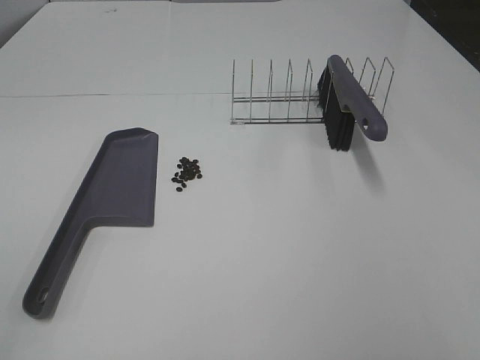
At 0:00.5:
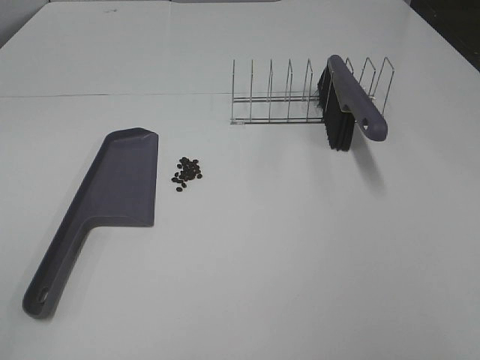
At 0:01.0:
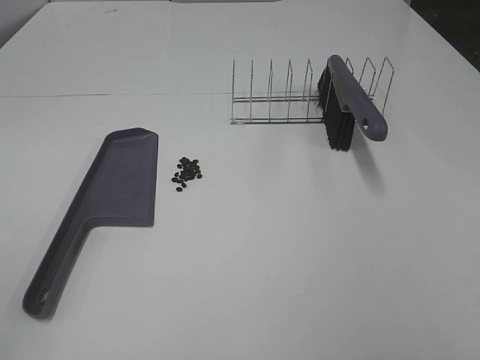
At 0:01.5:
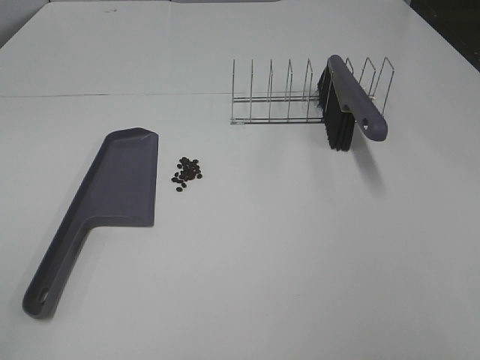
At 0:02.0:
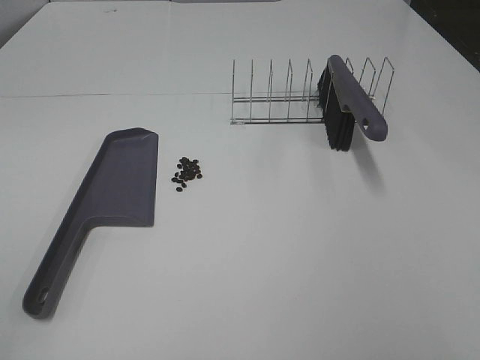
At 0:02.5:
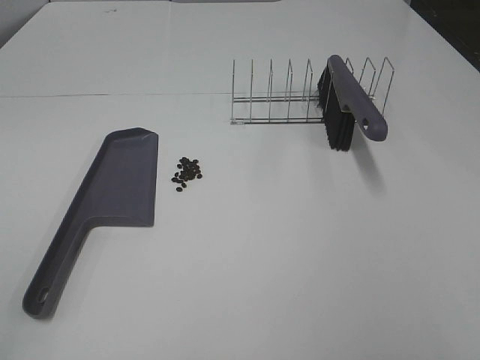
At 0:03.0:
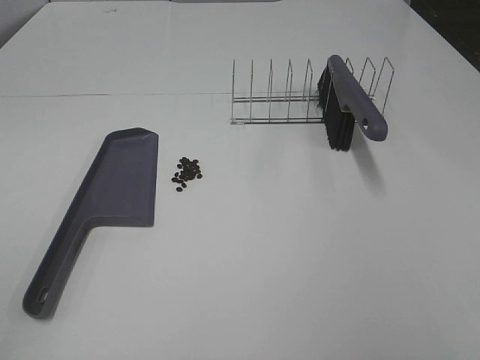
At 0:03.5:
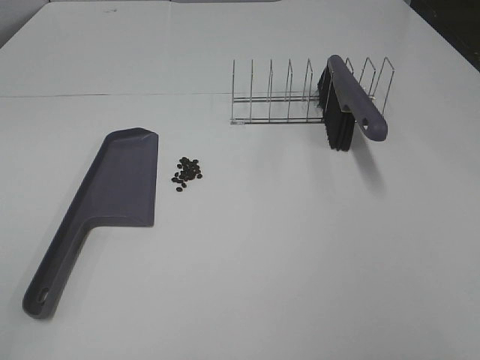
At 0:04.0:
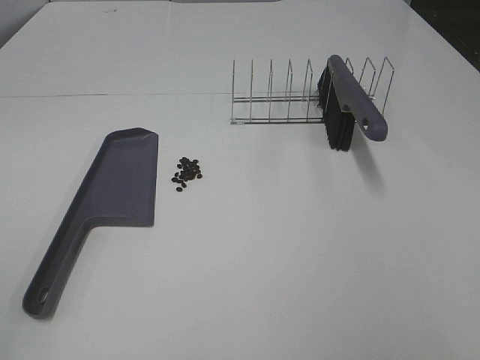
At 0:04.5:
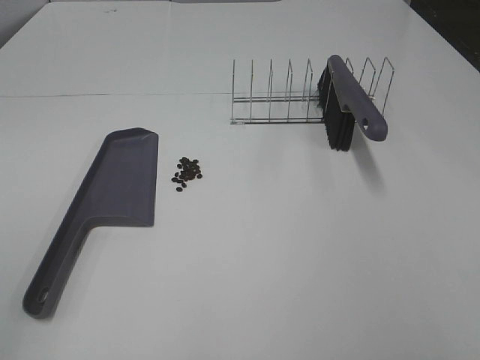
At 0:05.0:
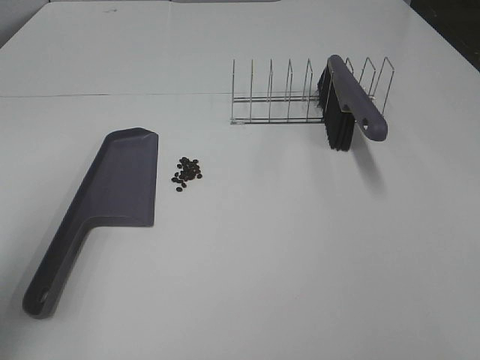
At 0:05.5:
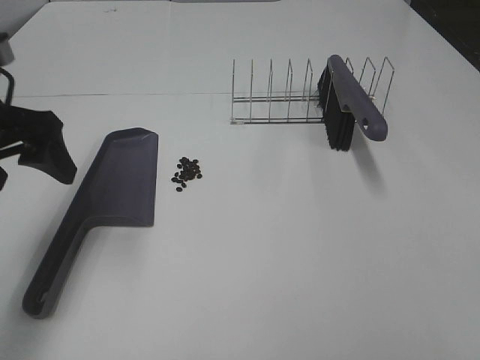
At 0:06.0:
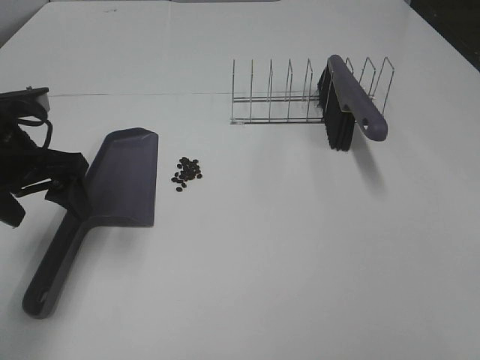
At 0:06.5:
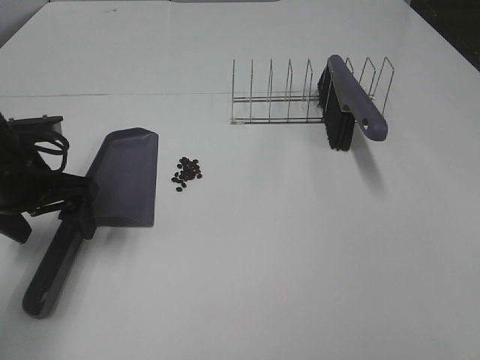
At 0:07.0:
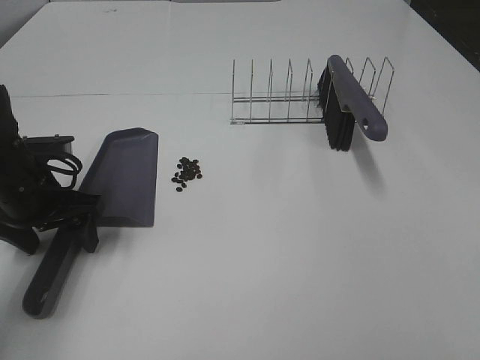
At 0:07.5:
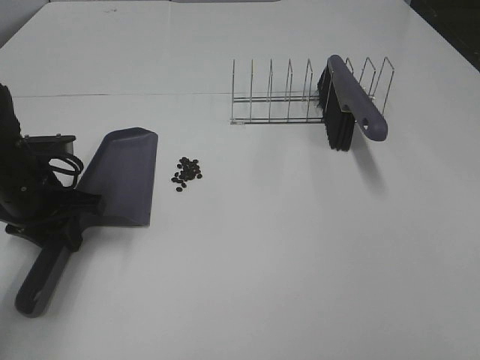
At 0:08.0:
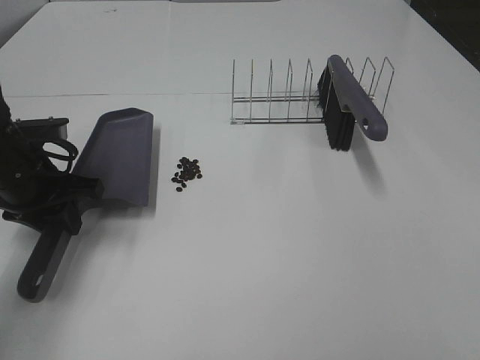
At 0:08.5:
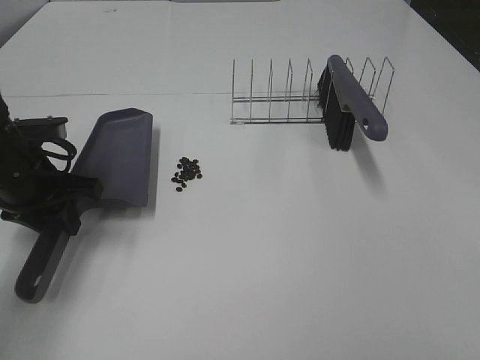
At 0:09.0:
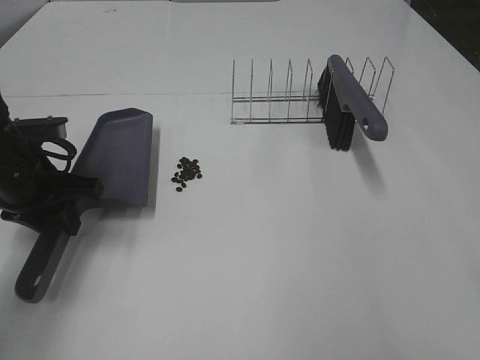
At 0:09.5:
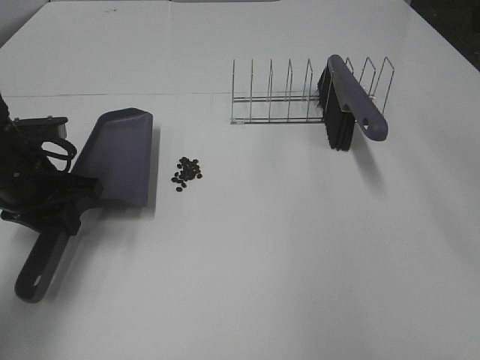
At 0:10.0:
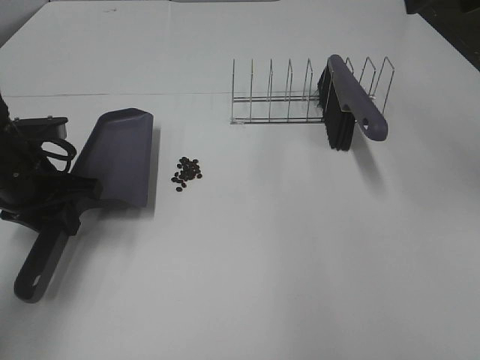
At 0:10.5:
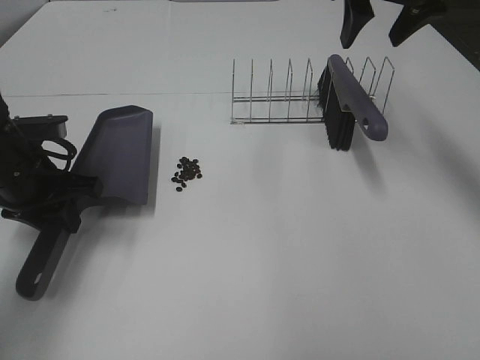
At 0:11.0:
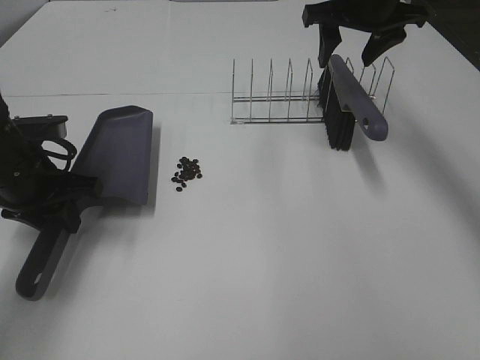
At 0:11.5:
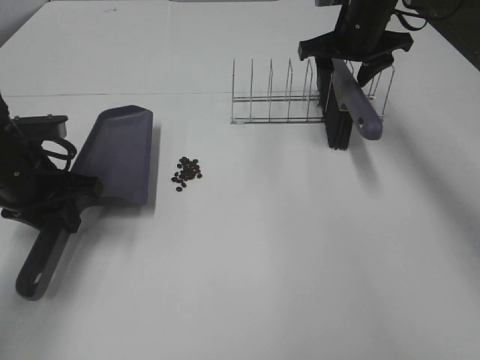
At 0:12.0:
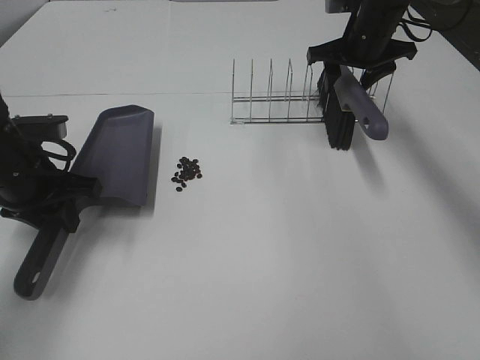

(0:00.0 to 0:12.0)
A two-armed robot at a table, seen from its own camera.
Task of the whole recording: Sweep Coffee Bean.
Step, 0:00.0 - 0:07.0: Left hand: grab the dustpan.
0:00.0 - 0:04.0: Neither gripper changes place.
0:04.0 - 0:06.0: The left gripper travels forward by roughly 30 cm.
0:06.0 - 0:08.0: The left gripper travels downward by about 5 cm, and closes.
0:10.0 - 0:12.0: The right gripper heads forward and downward, covering about 25 cm.

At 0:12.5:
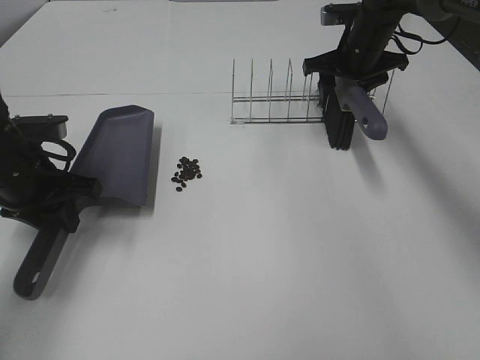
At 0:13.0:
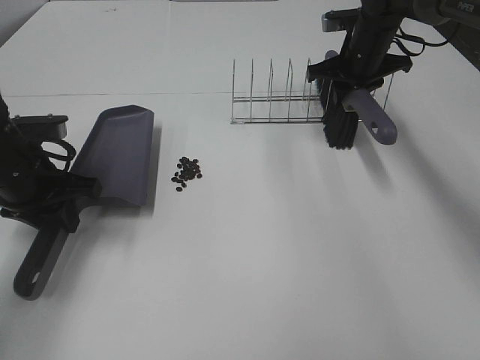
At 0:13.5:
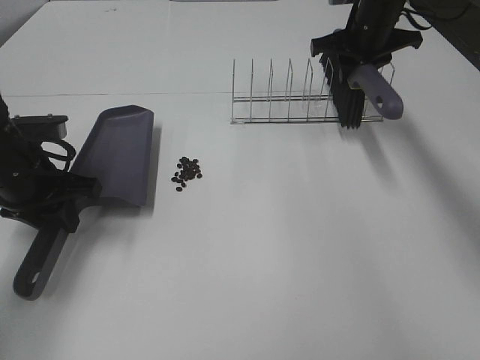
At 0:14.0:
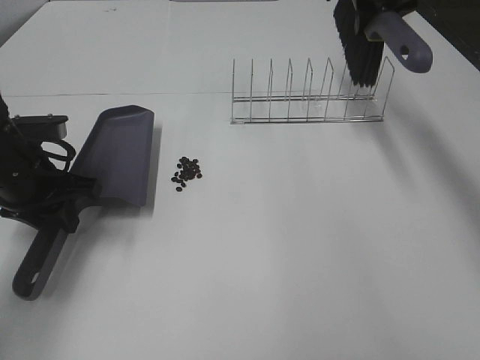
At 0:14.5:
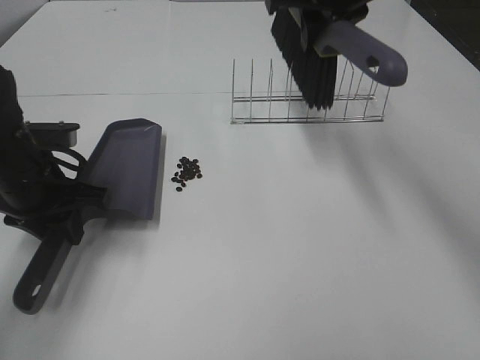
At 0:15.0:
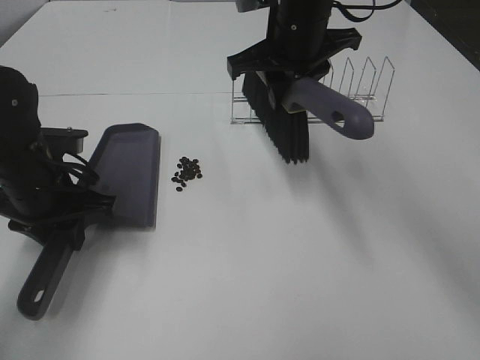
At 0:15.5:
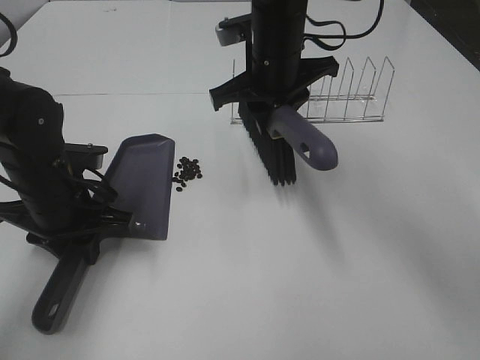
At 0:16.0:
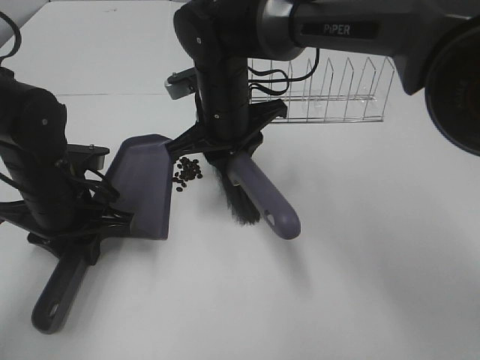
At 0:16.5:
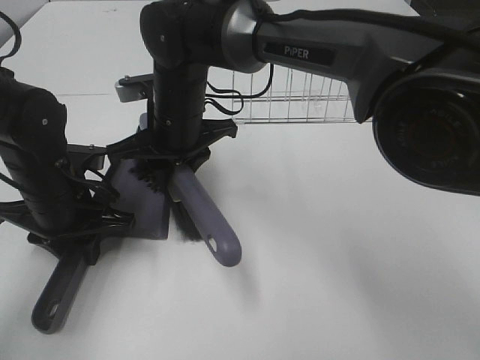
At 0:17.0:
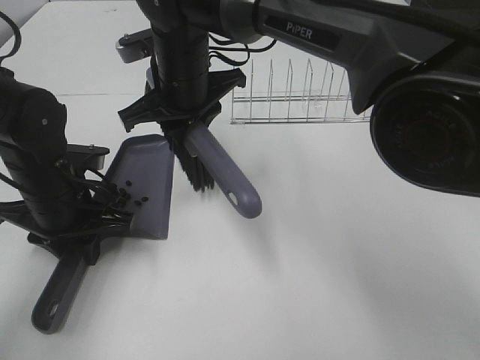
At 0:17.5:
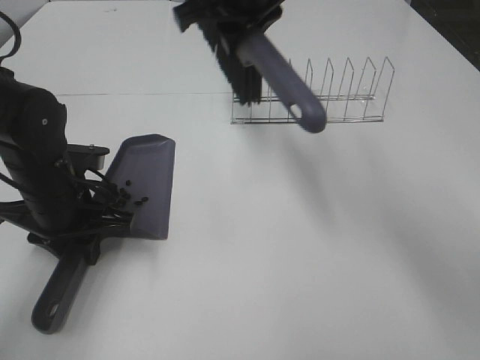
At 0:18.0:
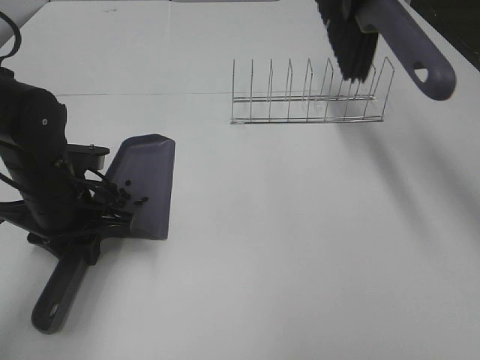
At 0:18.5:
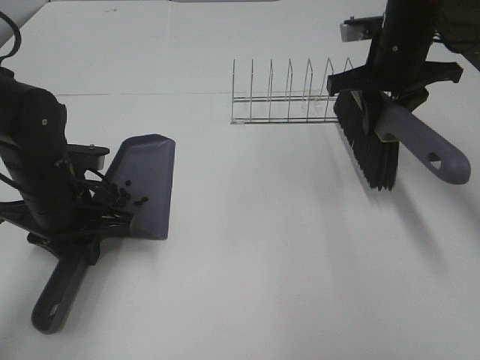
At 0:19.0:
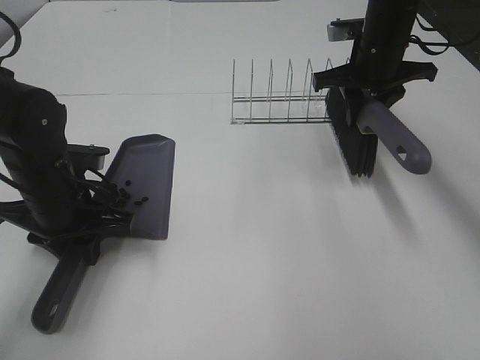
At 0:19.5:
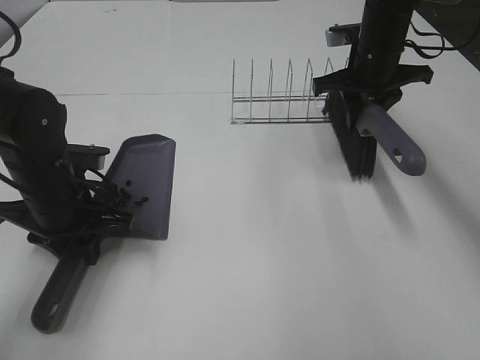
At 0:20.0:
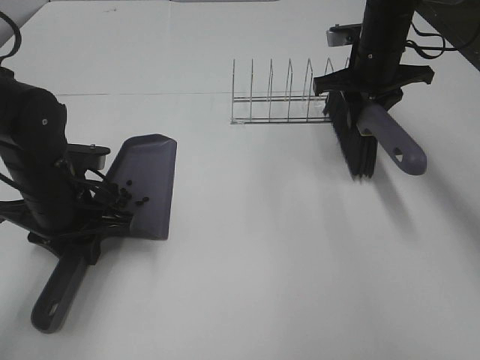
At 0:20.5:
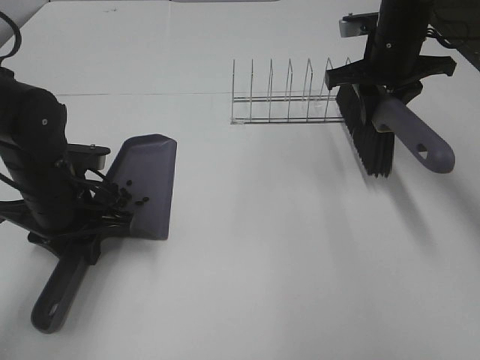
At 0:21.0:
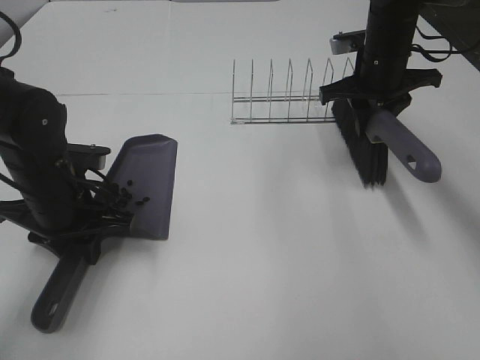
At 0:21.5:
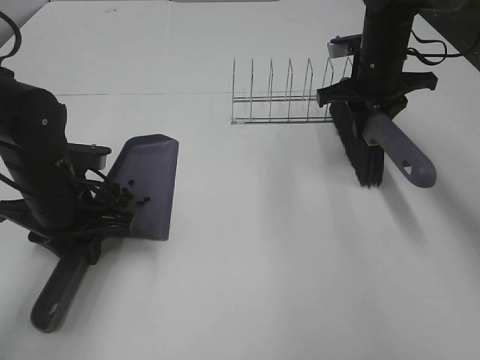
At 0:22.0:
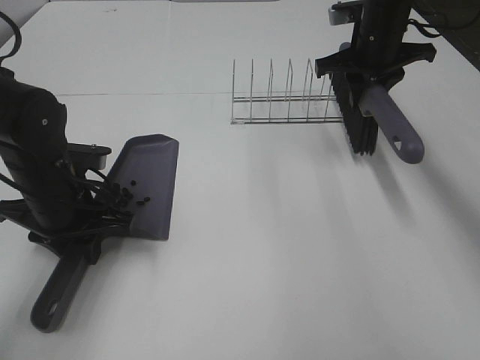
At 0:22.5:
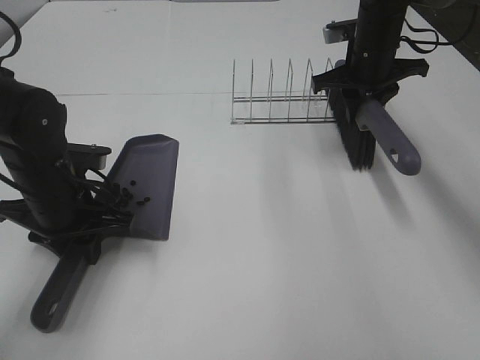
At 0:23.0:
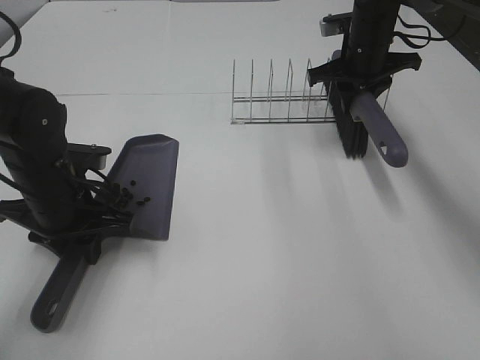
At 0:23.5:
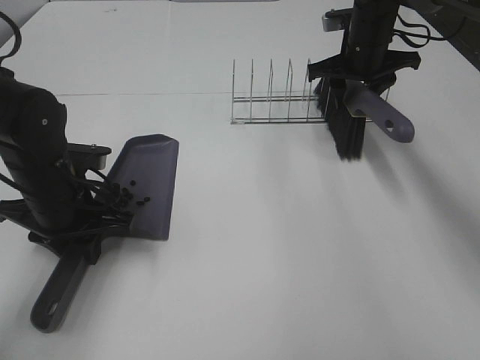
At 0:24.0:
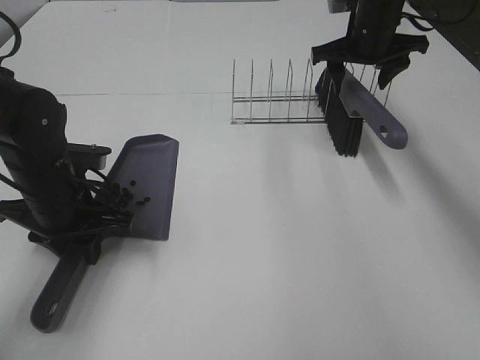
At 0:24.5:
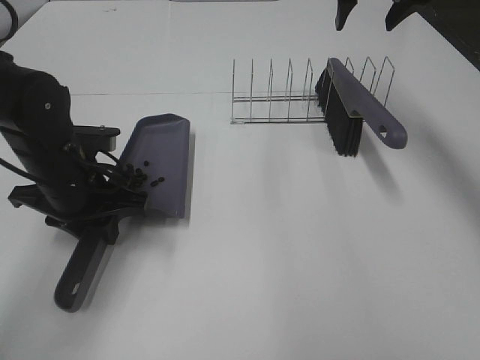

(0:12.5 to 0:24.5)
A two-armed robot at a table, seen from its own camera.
Task of the whole recording: Sweep Coffee Bean.
Step, 0:13.0 - 0:16.5: Right hand:sweep the coffee beans into the dustpan.
Step, 0:17.0 - 0:23.5: Right hand:place the broom on the rack.
0:12.5 - 0:14.5: The right gripper travels upward, backward and to the left by approximately 15 cm, and closes its fingers.
0:14.5 - 0:16.5: The right gripper moves to the left and downward, about 25 cm.
0:16.5 - 0:18.5: The right gripper heads to the right, covering about 25 cm.
0:18.5 - 0:20.5: The grippers move only a little.
0:20.5 - 0:22.5: The right gripper changes place by some 5 cm.
0:22.5 - 0:24.5: The right gripper is displaced upward by approximately 15 cm, and opens.

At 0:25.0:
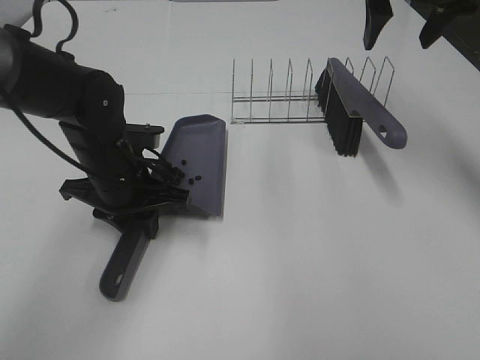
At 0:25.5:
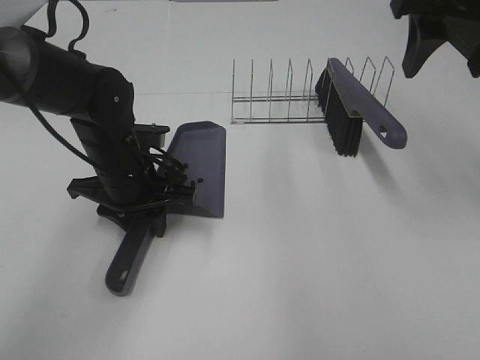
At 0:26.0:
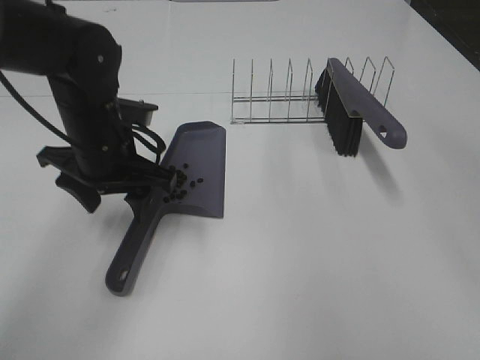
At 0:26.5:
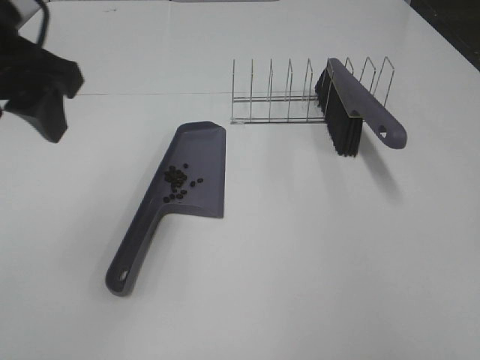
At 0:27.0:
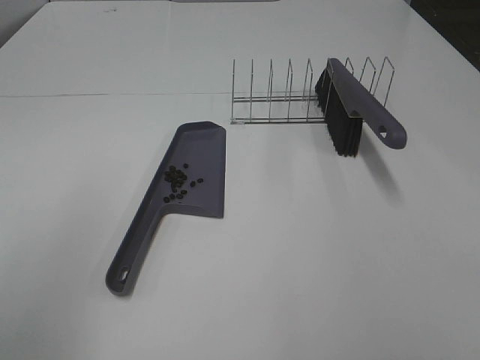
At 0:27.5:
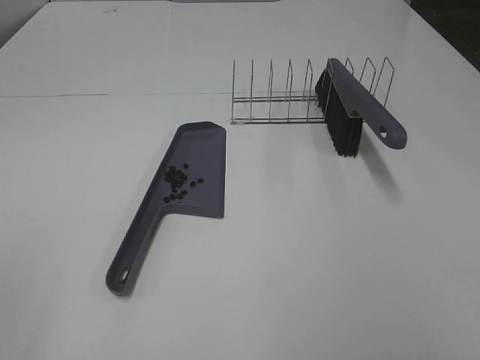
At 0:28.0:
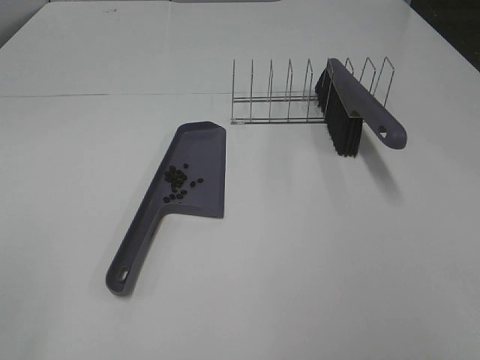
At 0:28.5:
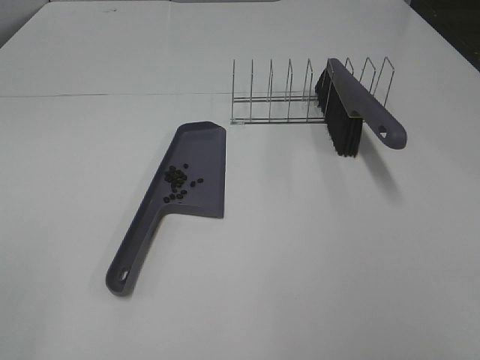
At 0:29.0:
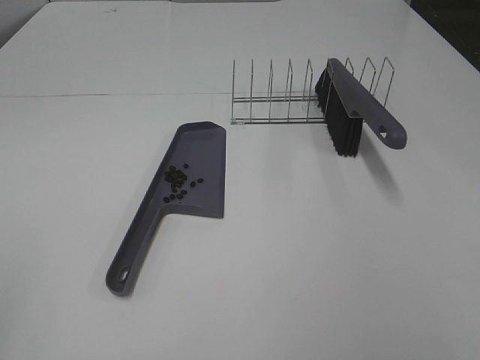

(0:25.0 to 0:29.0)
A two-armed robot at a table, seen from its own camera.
Task of the whole recording: Sweep Coffee Bean.
0:25.0 - 0:27.0: The left gripper goes some 30 cm backward, upward and to the left, and opens, while the right gripper heads backward, covering approximately 35 cm.
0:27.0 - 0:29.0: The left gripper goes approximately 15 cm backward and to the left.
